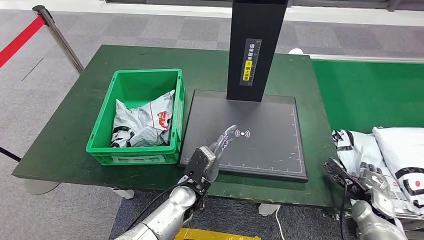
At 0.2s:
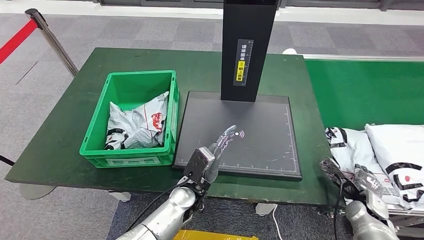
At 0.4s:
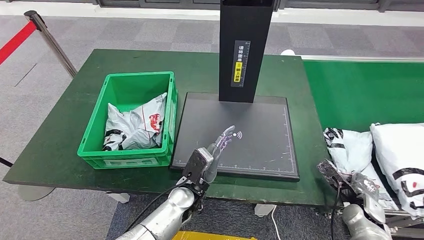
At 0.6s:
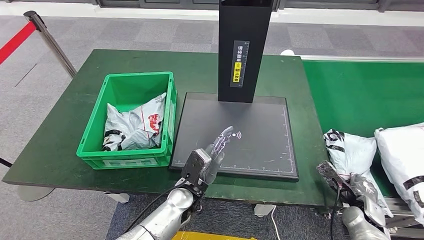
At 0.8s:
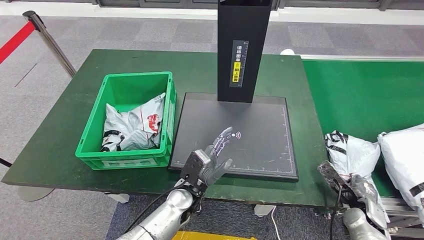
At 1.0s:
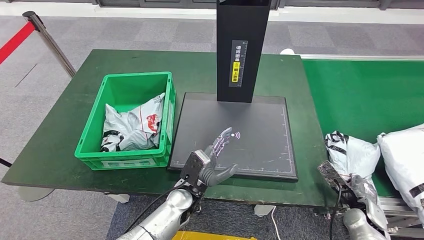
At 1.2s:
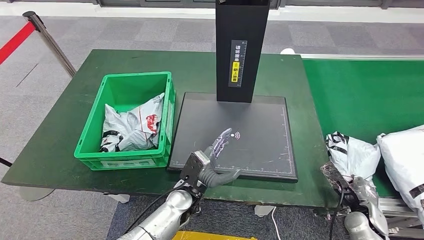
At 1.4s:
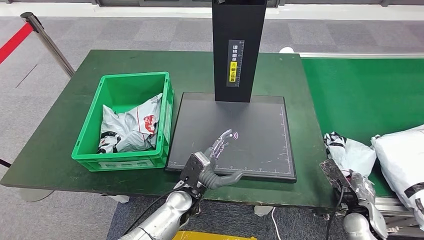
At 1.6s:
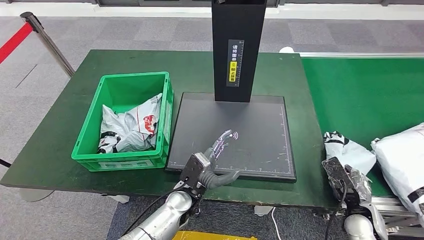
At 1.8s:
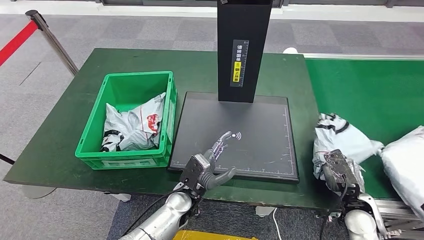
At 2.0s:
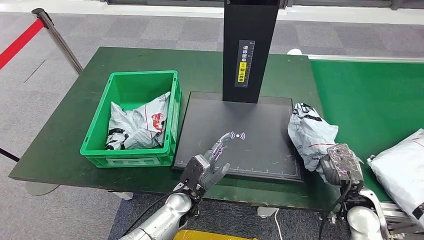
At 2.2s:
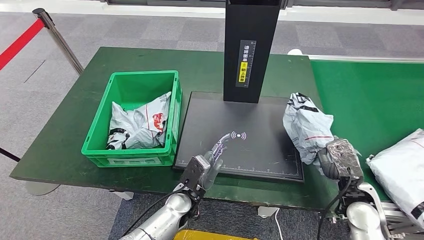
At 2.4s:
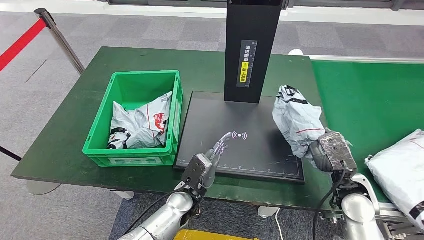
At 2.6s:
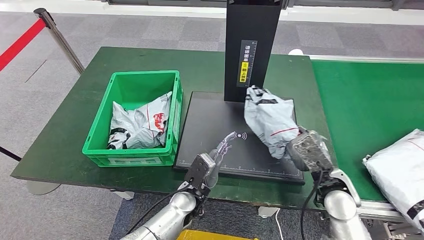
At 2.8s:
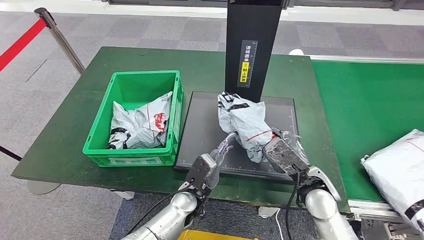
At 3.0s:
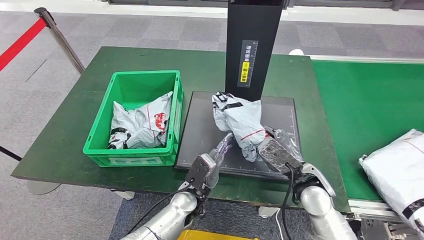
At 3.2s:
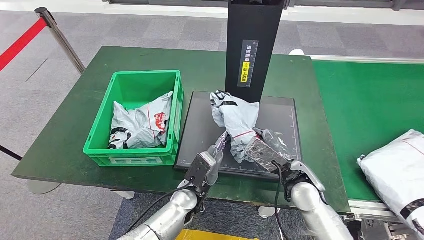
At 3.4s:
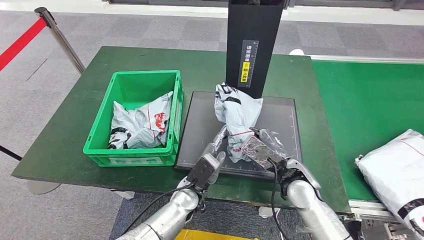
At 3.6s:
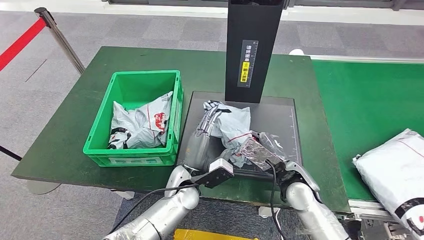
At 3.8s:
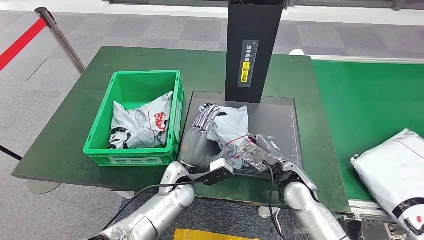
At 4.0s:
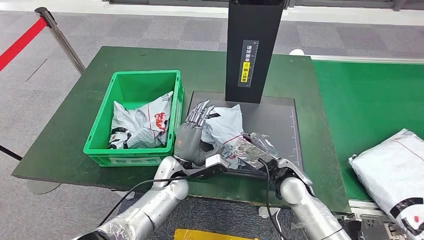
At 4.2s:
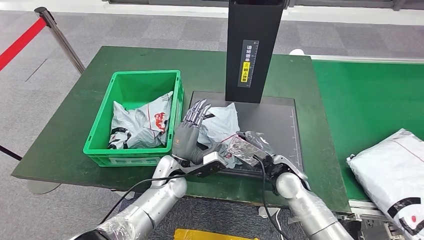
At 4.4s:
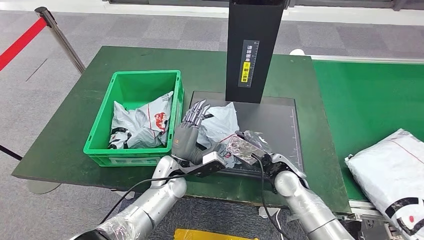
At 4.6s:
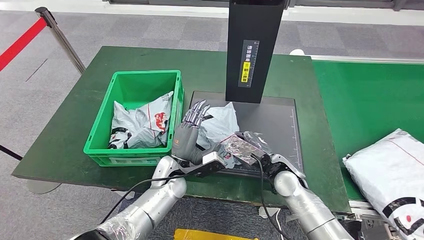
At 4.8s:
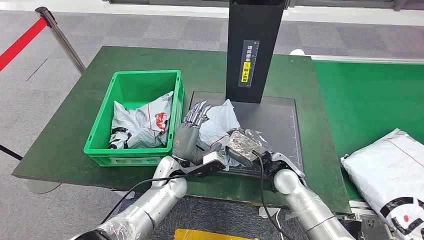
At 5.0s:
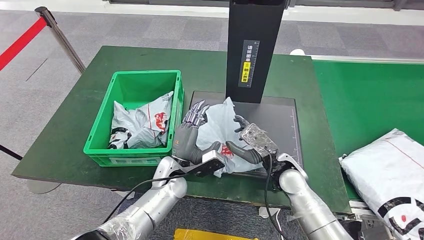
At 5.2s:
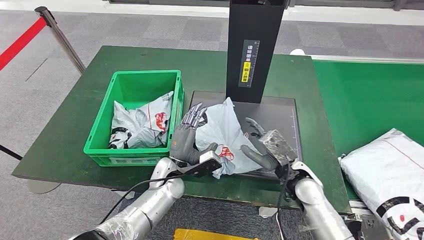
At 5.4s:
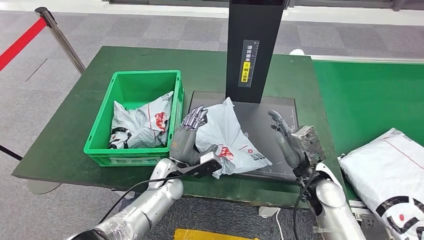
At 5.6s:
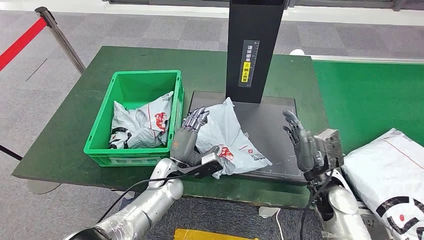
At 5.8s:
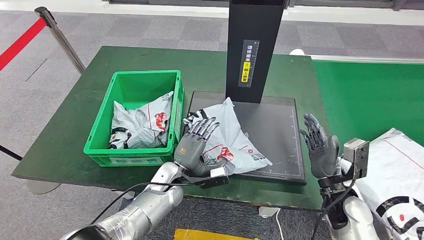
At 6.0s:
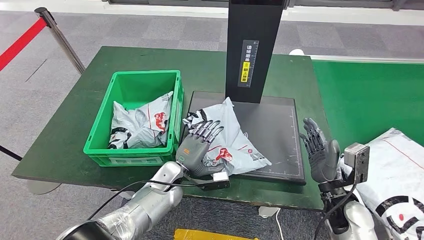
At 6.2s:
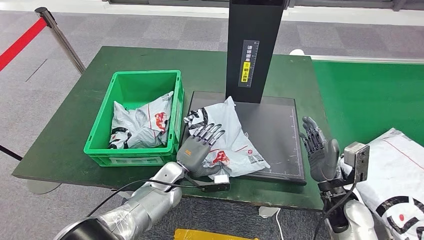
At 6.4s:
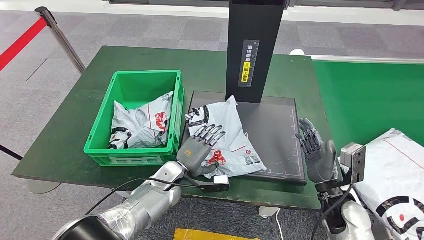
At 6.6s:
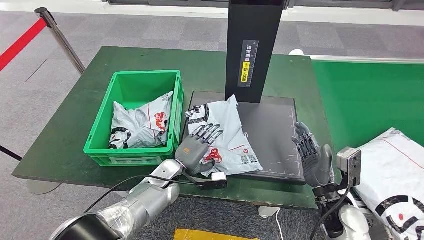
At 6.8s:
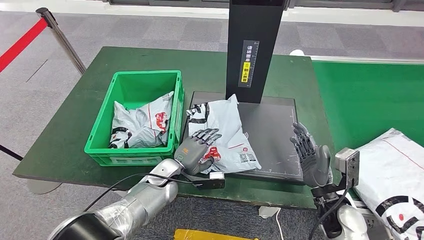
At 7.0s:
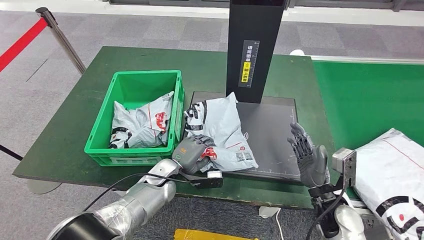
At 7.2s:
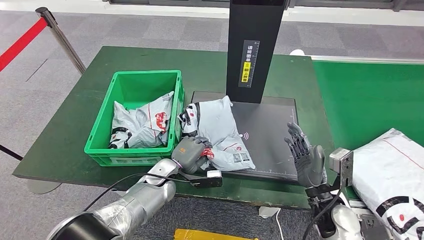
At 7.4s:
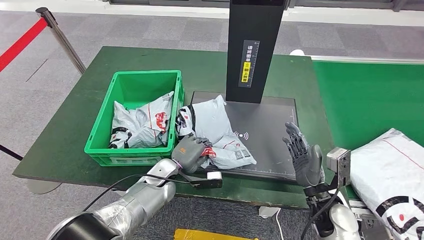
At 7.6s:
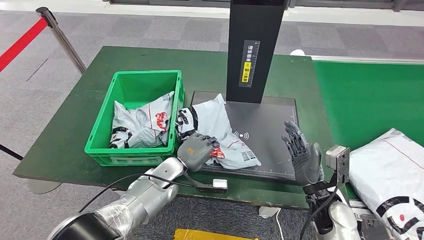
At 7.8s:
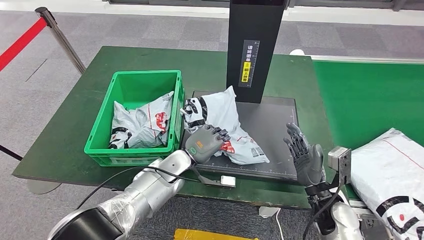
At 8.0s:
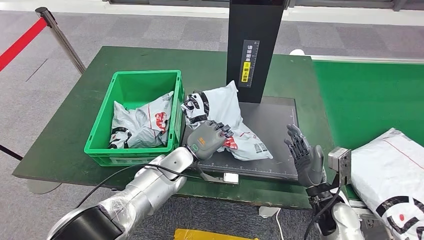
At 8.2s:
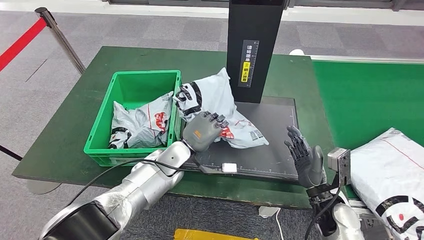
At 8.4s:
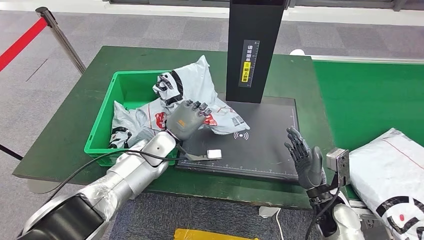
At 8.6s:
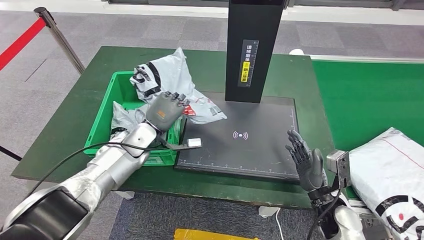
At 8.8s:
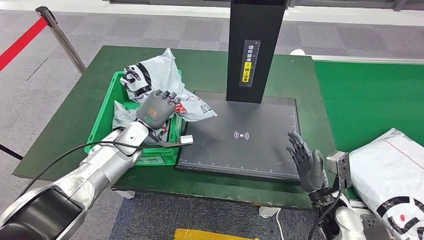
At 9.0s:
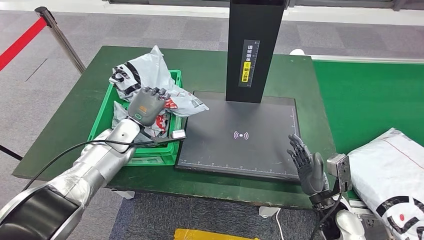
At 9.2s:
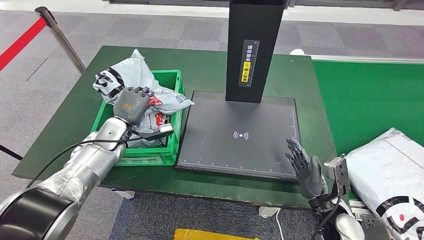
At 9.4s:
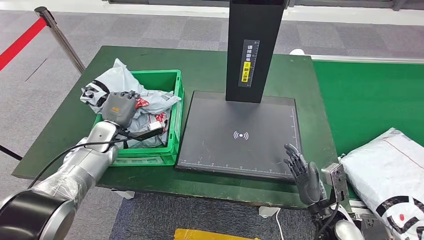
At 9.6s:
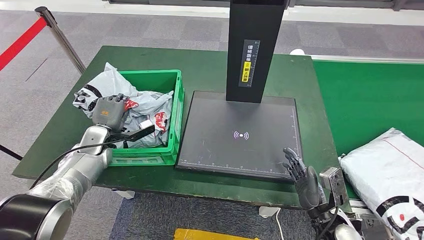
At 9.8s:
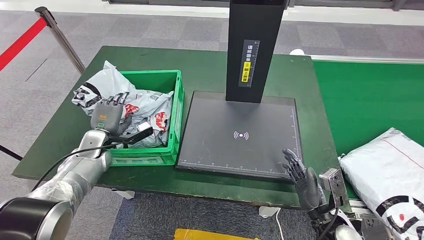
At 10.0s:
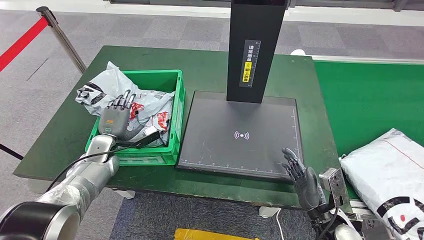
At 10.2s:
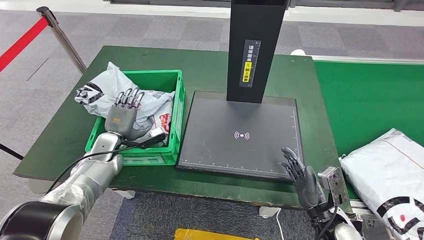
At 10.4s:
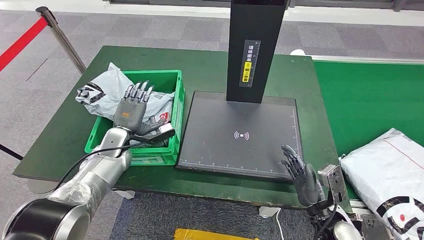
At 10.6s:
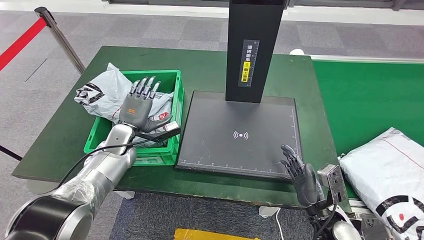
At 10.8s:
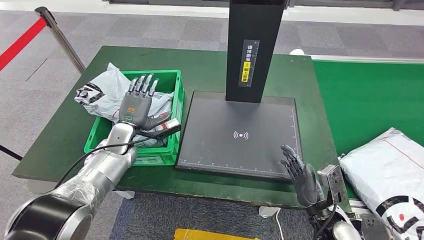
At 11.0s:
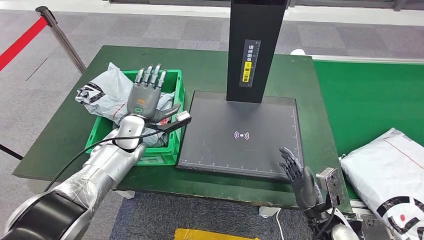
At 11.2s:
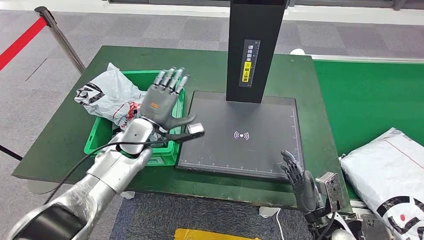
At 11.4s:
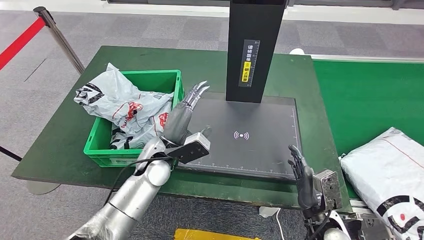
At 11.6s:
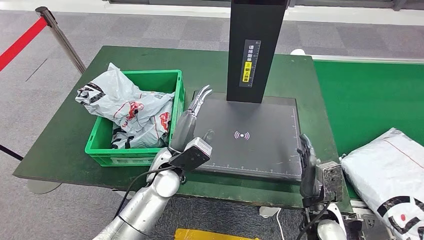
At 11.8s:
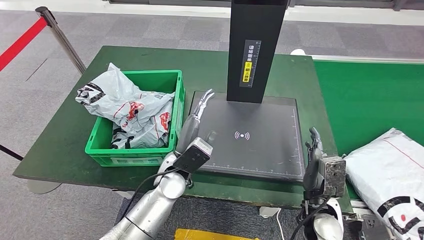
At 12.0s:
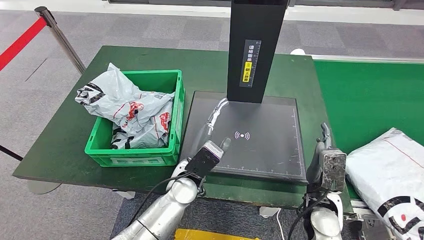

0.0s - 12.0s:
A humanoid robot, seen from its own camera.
Step, 0.2s - 2.6s: Pick up the parcel from the conveyor belt.
Step, 3.0s - 6.0s: Place the parcel onto the inbound machine.
Step, 6.4s - 8.6s: Pick up the parcel from the inbound machine.
Step, 8.8s - 11.4s: Place the parcel into the delivery box.
3.0s - 4.4s: The right hand changes place by roughly 5 cm; the left hand goes roughly 10 cm to the left and forward.
4.4s - 6.0s: The right hand shifts approximately 15 cm to the right and backward.
6.0s - 7.6s: The hands make only small movements.
9.0s - 10.4s: The left hand moves about 10 cm to the left and comes back.
10.4s - 12.0s: The left hand heads to the right and backward, covering some 25 cm, while the right hand shifts by roughly 5 cm.

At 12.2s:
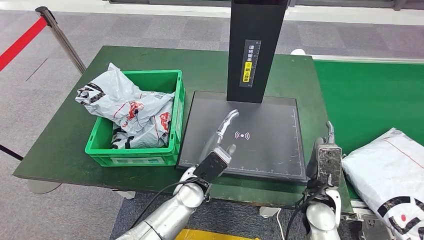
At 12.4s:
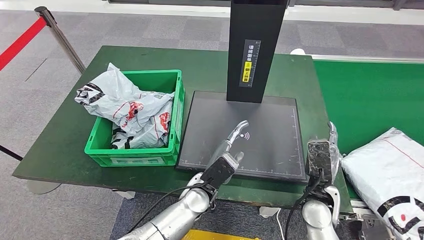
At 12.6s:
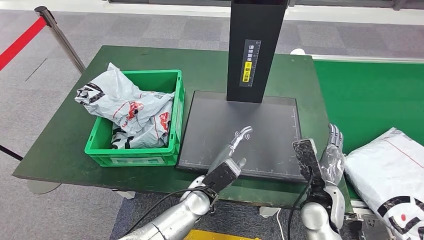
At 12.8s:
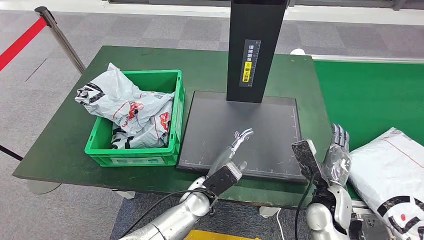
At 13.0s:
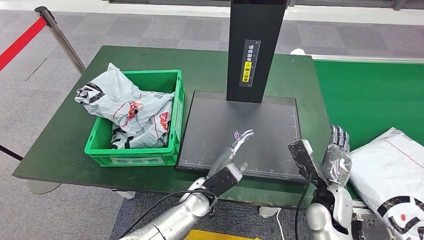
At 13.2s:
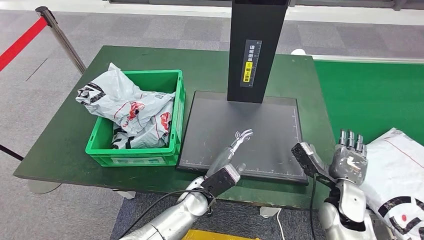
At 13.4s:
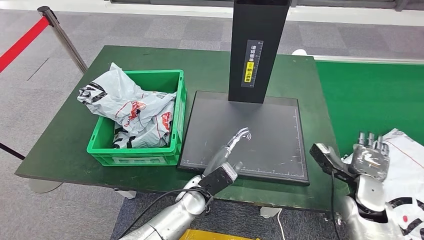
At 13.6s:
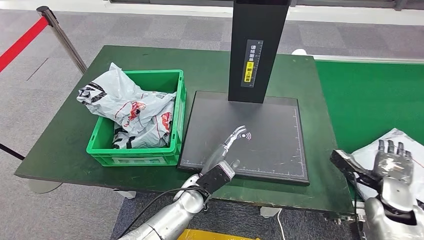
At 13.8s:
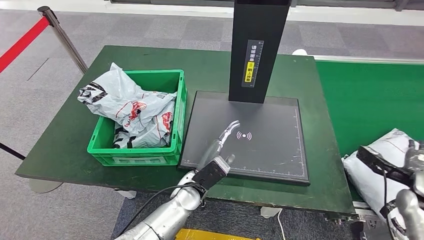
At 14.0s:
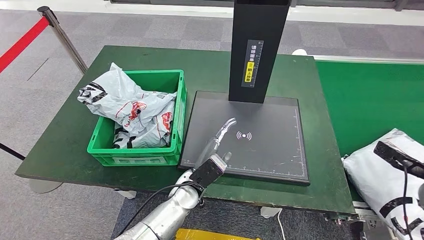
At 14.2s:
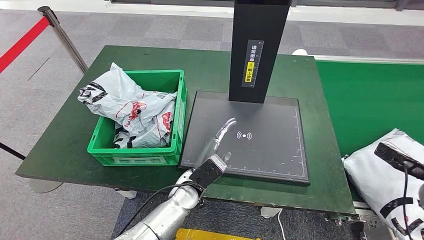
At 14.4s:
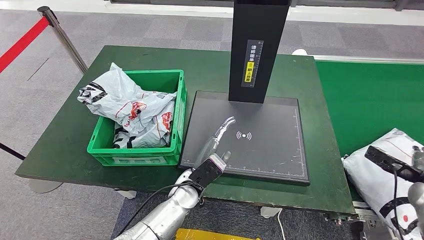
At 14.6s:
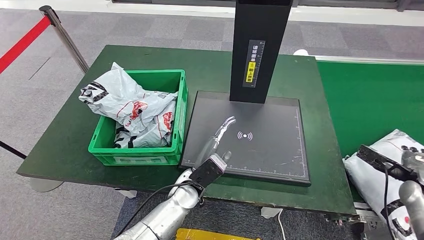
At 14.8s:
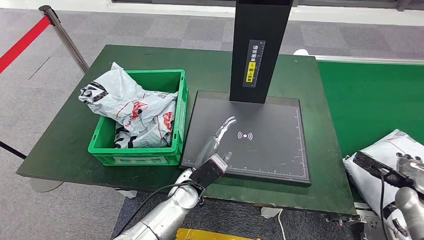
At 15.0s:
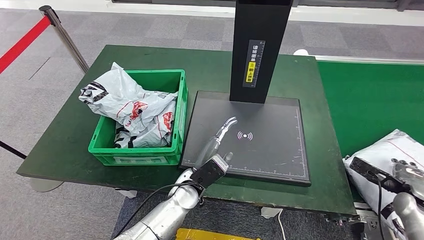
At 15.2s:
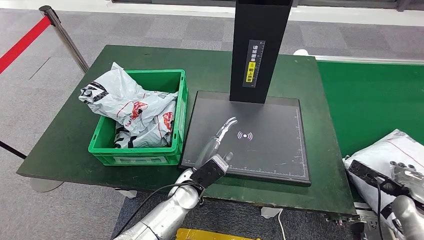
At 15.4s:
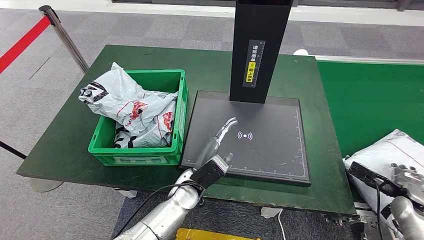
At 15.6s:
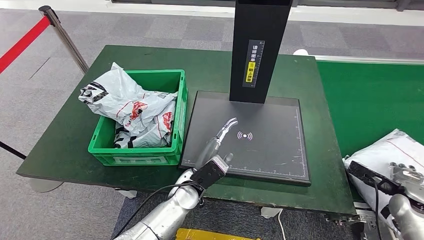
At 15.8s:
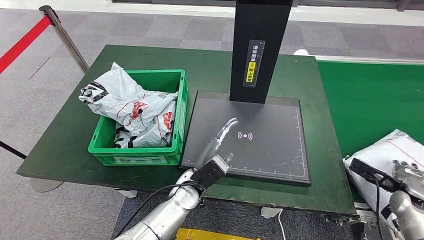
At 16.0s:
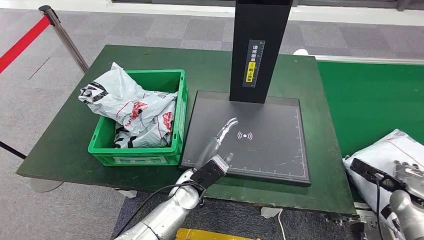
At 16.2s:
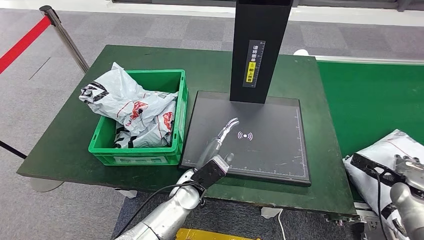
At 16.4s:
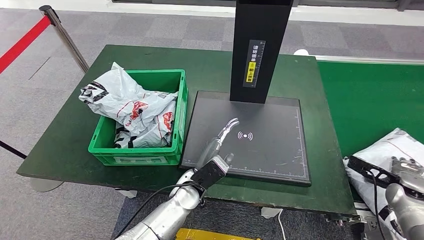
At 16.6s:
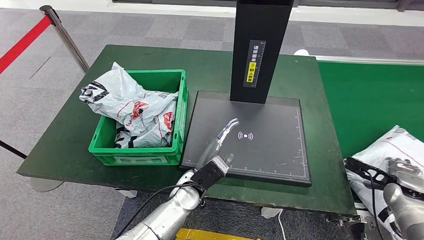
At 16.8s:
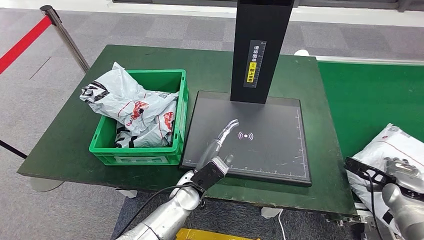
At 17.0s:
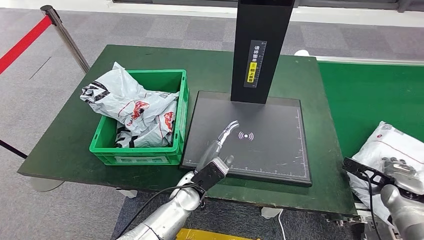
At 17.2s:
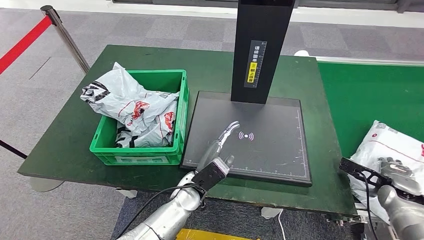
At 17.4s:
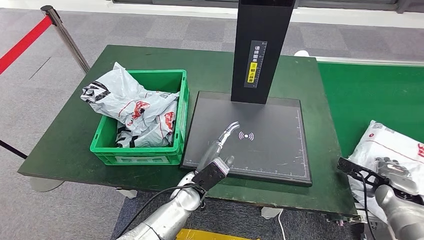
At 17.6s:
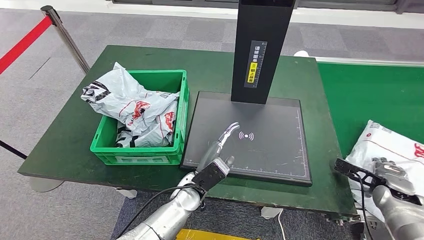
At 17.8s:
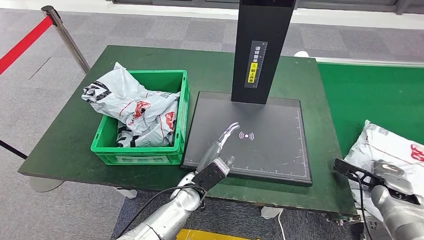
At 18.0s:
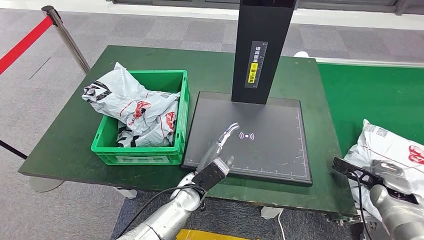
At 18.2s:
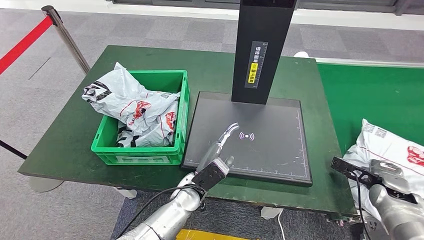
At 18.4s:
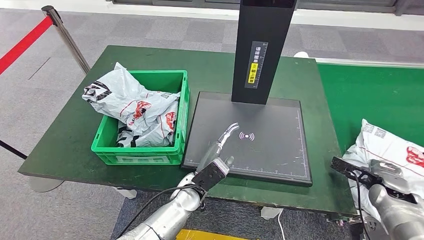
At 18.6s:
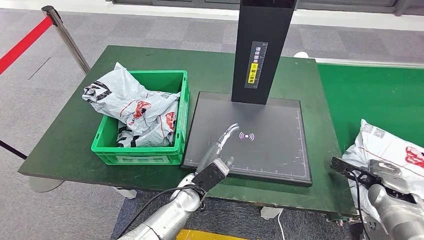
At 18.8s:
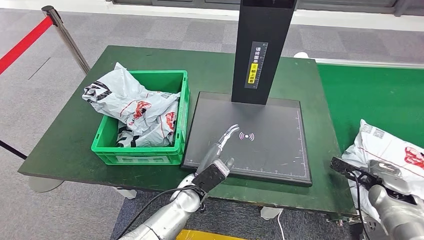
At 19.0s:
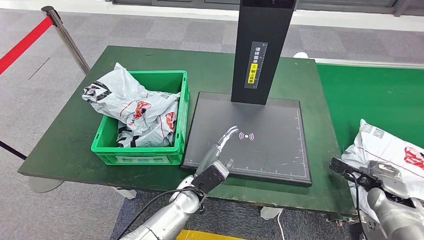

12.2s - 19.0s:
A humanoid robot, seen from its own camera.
12.2s - 13.6s: The right hand travels to the right by some 20 cm.
13.6s - 15.0s: The right hand moves to the right, some 10 cm.
15.0s - 19.0s: The hands stay close to where they were, moving slightly.
